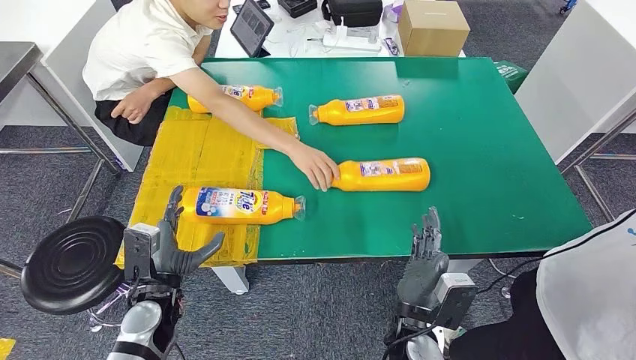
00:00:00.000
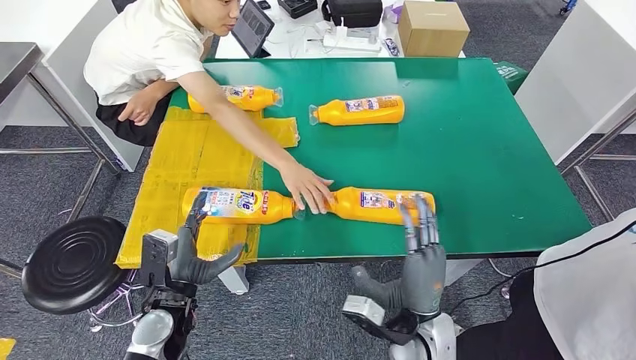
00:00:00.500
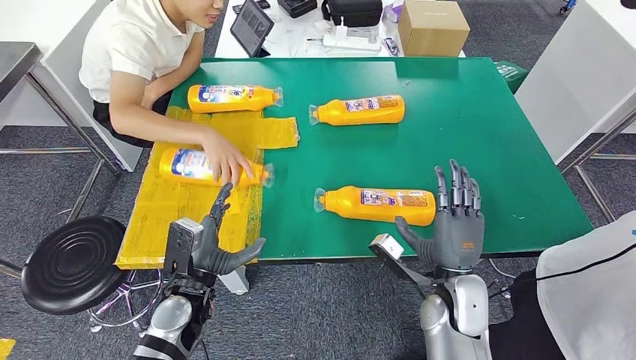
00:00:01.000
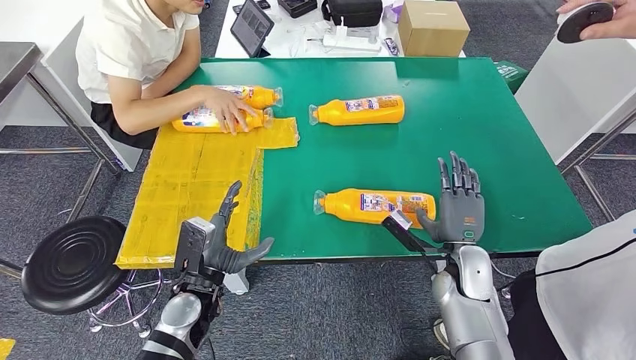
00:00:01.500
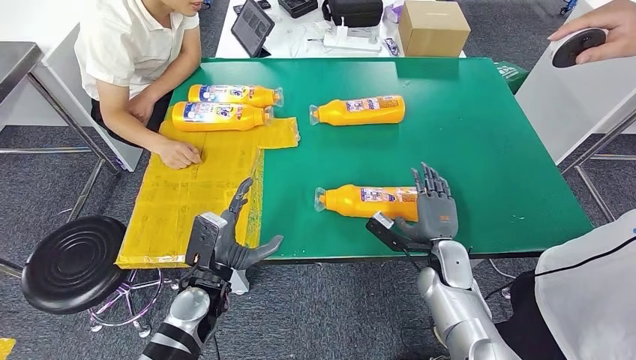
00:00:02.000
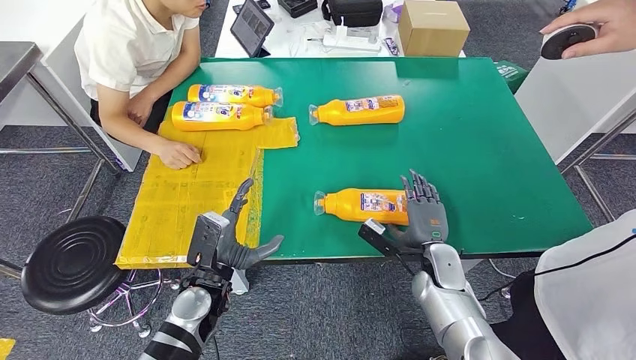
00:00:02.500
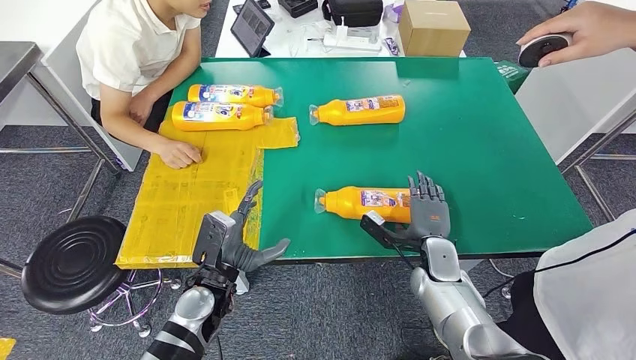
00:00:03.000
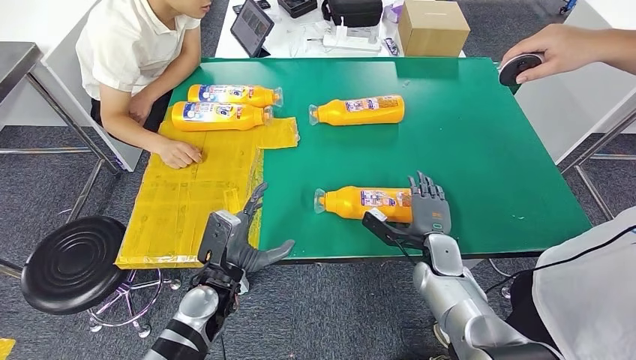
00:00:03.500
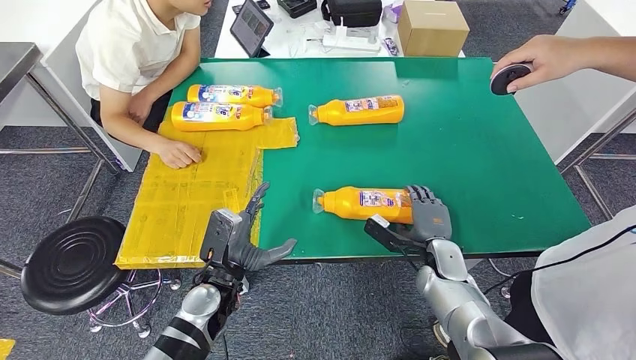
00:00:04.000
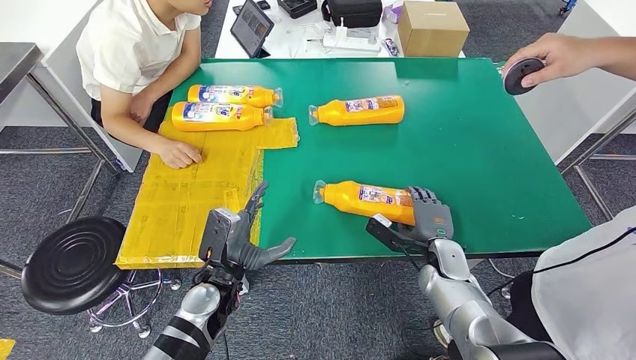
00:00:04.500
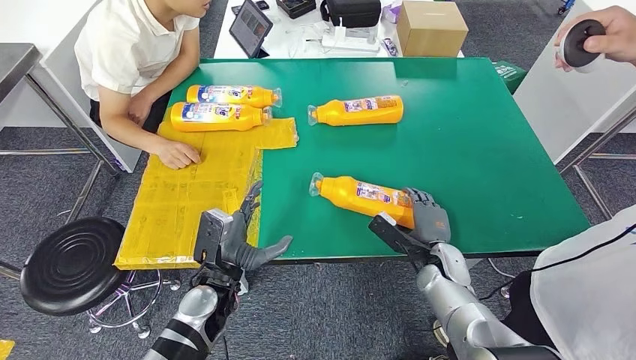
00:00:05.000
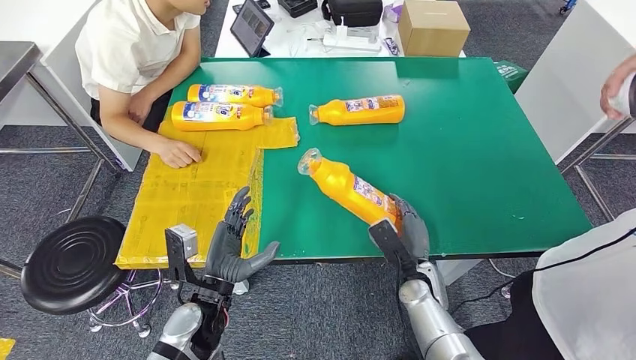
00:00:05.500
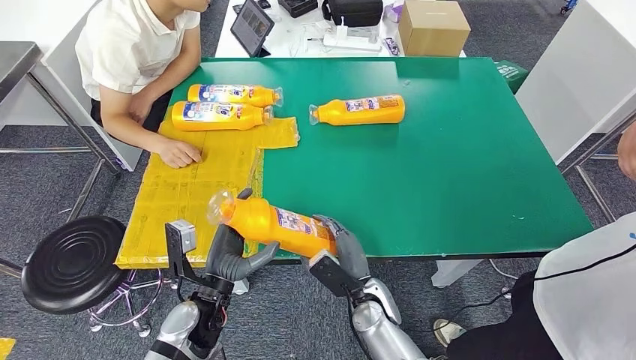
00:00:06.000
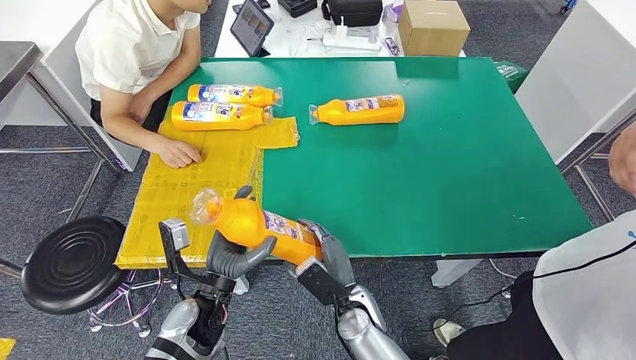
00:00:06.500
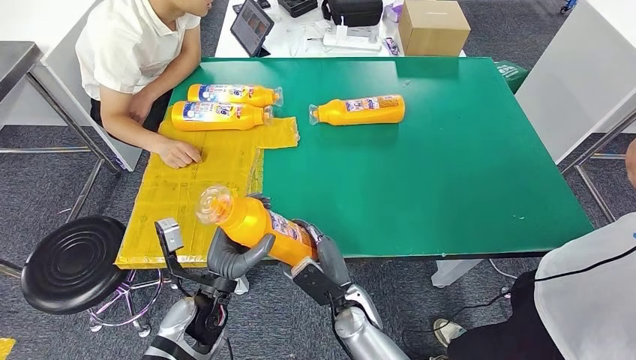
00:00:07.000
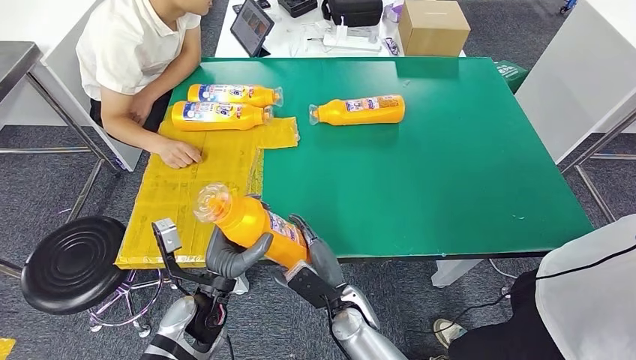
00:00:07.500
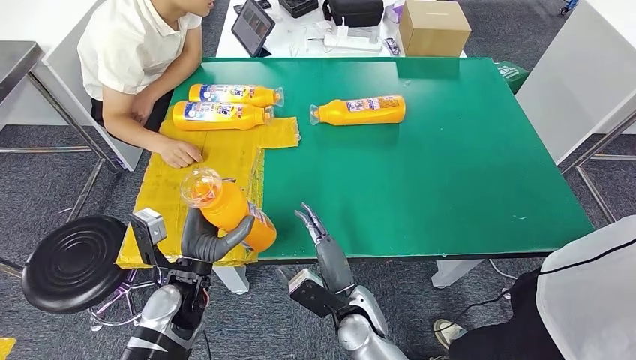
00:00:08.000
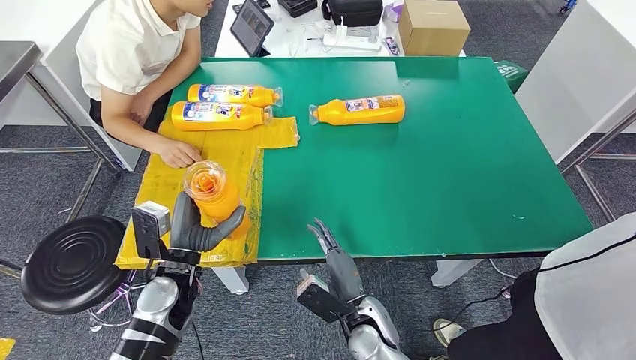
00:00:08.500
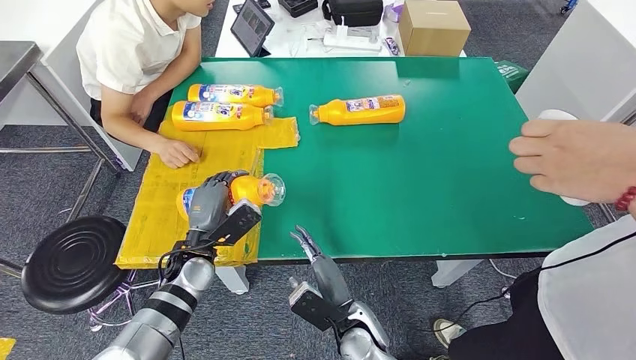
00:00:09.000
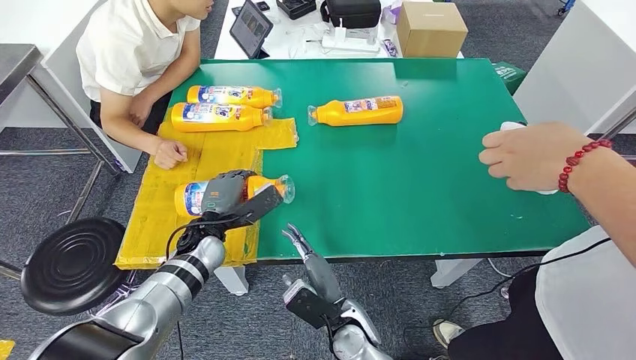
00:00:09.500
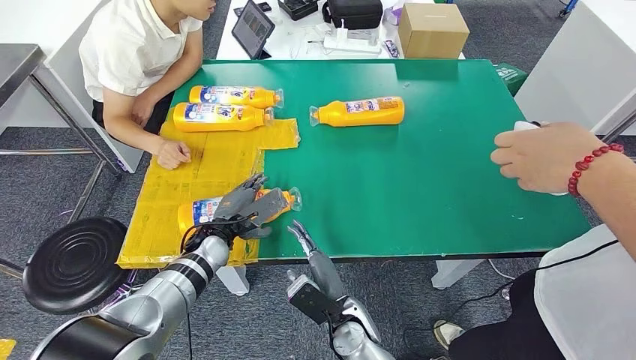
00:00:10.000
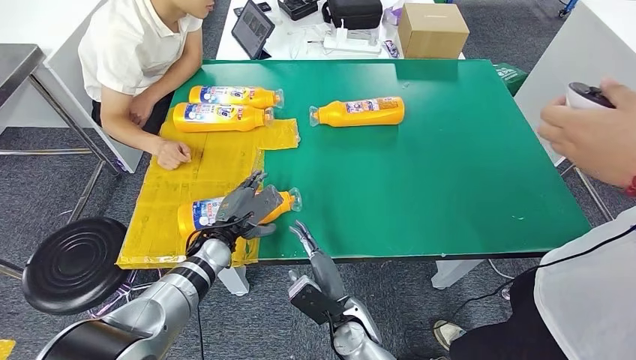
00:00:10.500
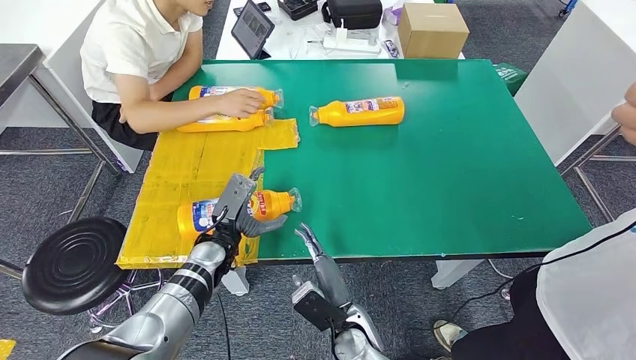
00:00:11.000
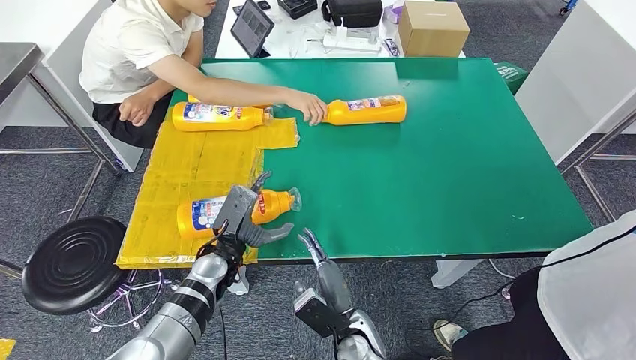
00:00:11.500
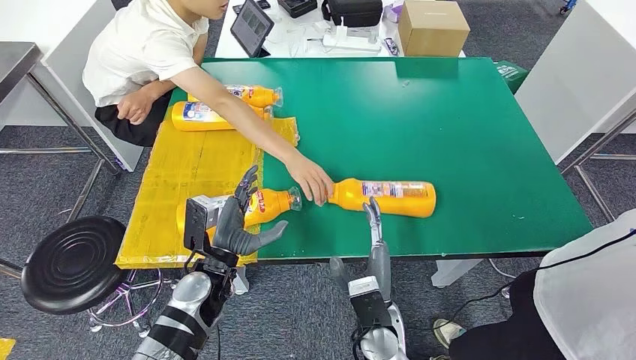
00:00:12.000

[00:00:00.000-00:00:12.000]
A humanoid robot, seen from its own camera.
Step, 00:00:00.000 to 00:00:05.500: Pick up the fast-moving consumer goods bottle from the table.
Step, 00:00:06.000 to 00:00:11.500: Flip the fast-moving consumer goods bottle to the front side.
00:00:02.000 to 00:00:04.000: There are only small adjustments of the hands.
00:00:04.000 to 00:00:06.000: The right hand shifts roughly 15 cm to the left and backward.
00:00:06.000 to 00:00:08.000: The right hand moves some 5 cm.
00:00:08.000 to 00:00:10.000: The left hand heads forward, covering roughly 10 cm.

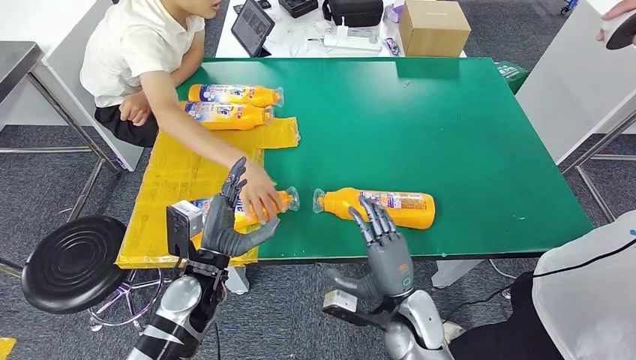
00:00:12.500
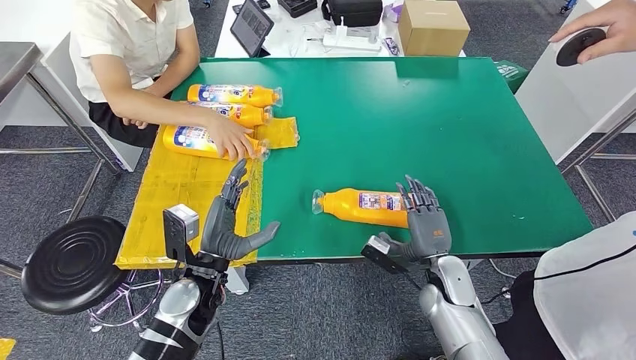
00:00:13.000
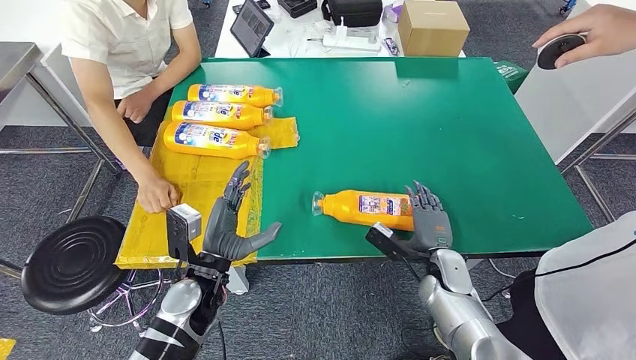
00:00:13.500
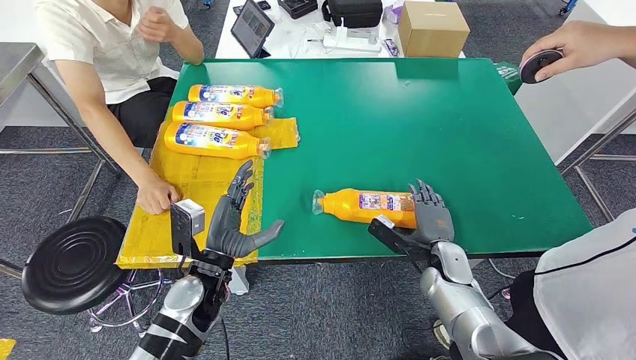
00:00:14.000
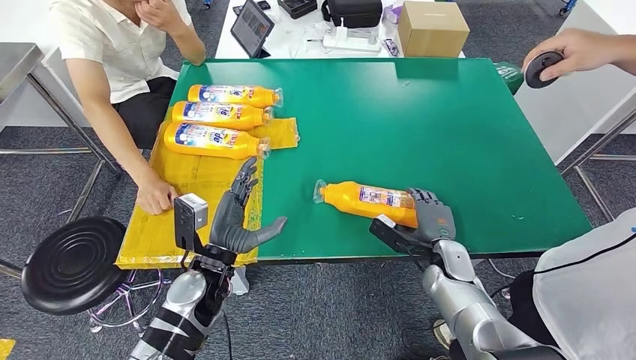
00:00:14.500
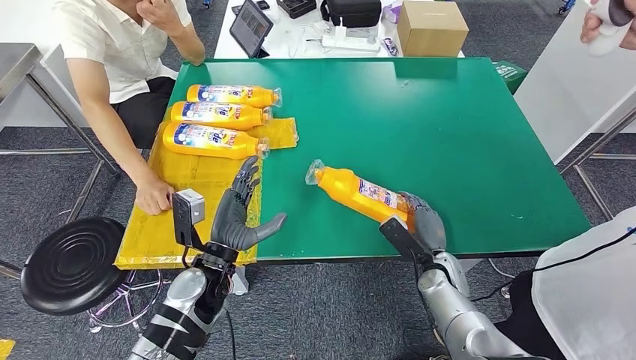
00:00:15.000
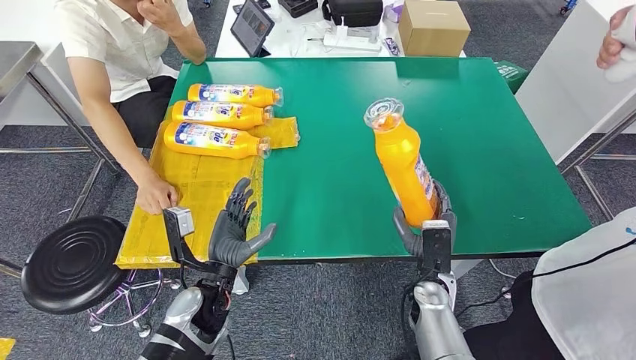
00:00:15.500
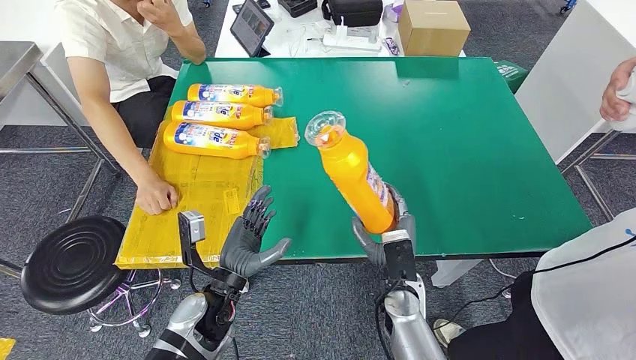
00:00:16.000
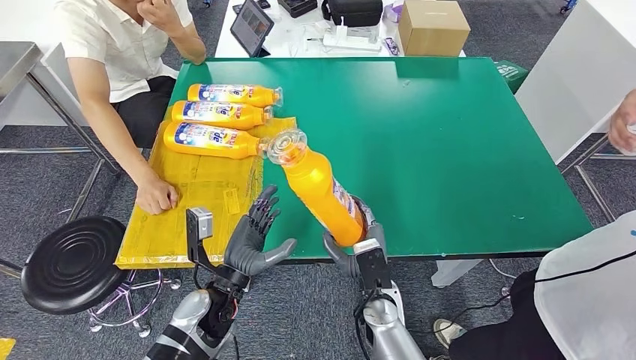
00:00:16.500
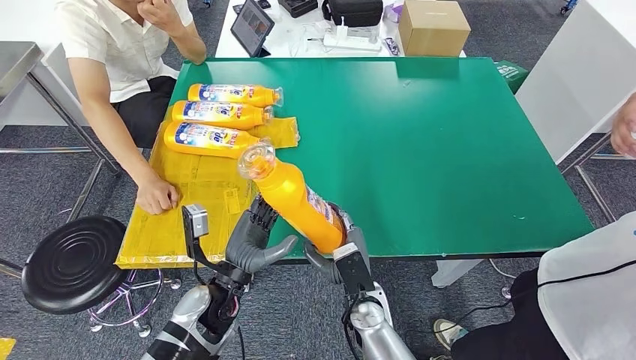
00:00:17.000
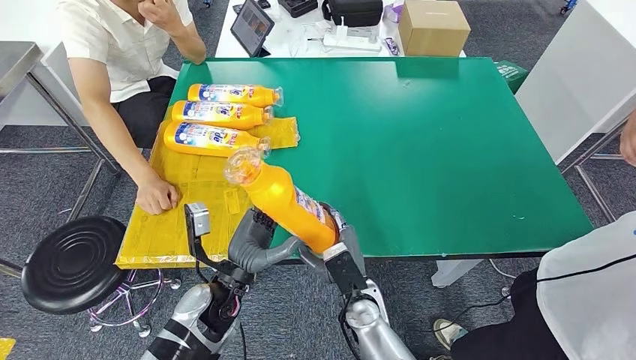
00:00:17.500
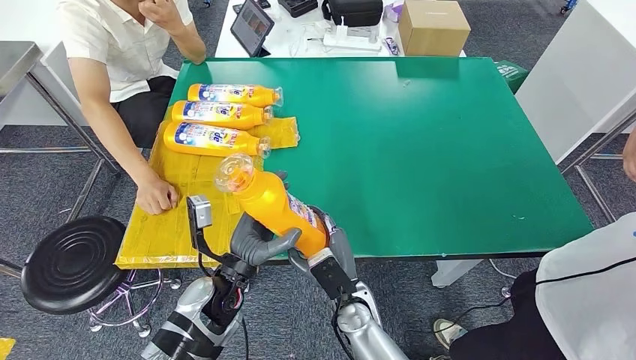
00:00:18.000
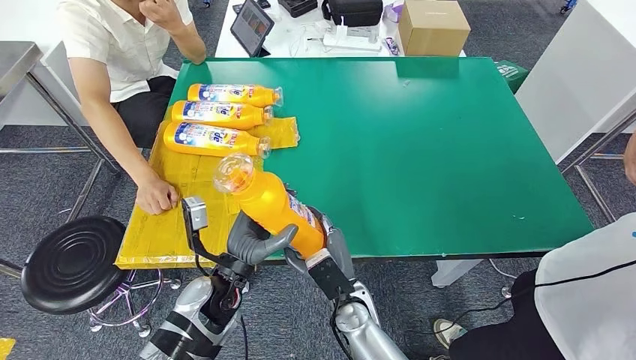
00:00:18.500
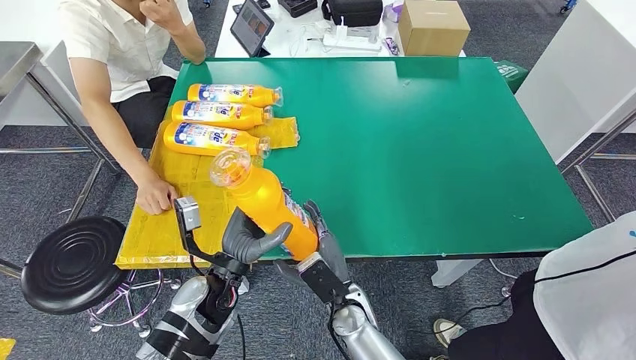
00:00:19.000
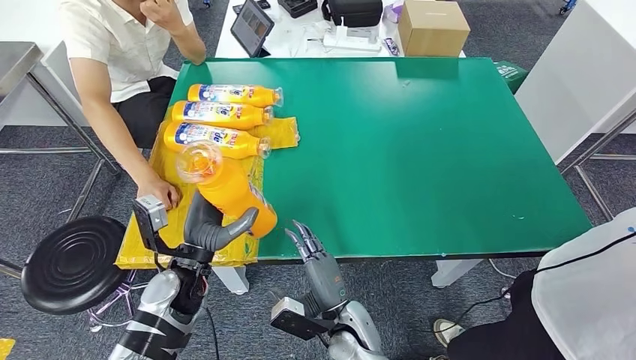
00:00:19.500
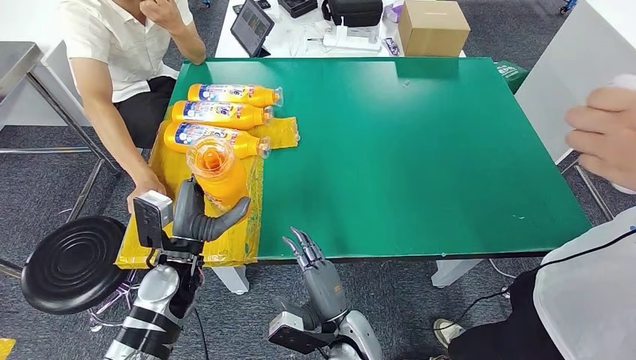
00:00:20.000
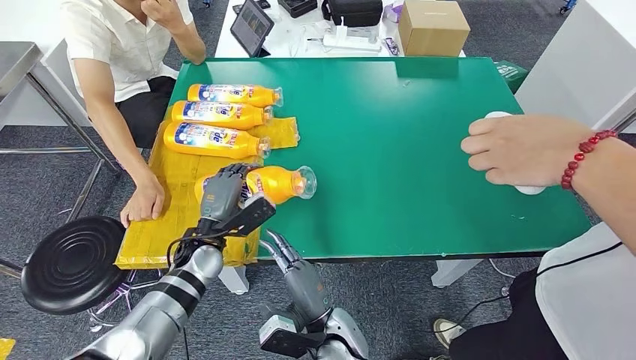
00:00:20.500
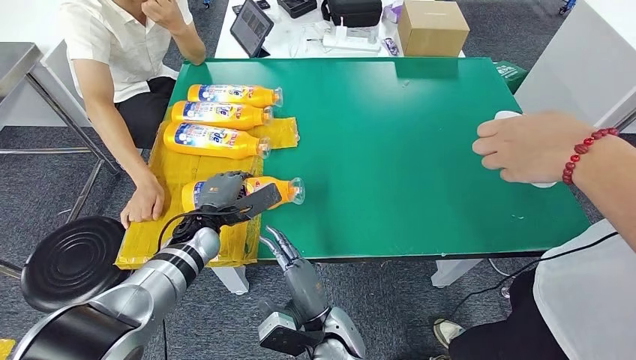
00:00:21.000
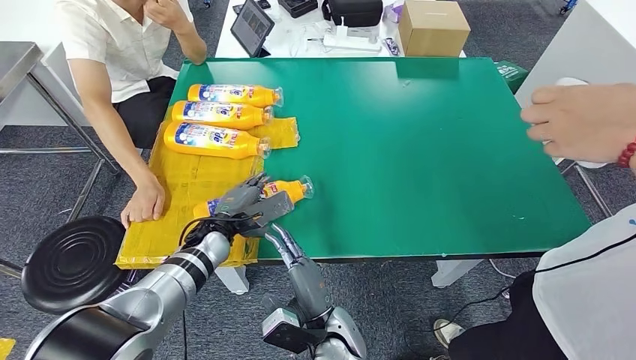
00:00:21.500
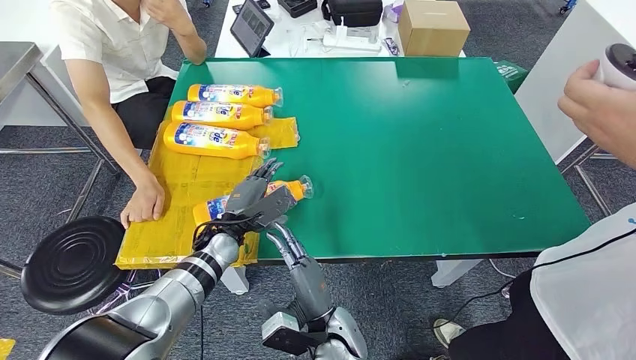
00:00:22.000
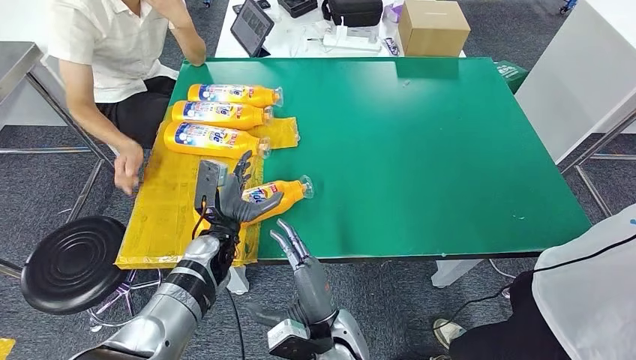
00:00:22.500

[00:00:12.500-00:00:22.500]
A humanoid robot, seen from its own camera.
Step, 00:00:12.500 to 00:00:15.500: Pick up the fast-moving consumer goods bottle from the table.
Step, 00:00:16.000 to 00:00:22.500: Flip the fast-moving consumer goods bottle to the front side.
00:00:14.500 to 00:00:16.500: The right hand travels to the left and backward by about 20 cm.
00:00:16.500 to 00:00:18.500: The hands make only small movements.
